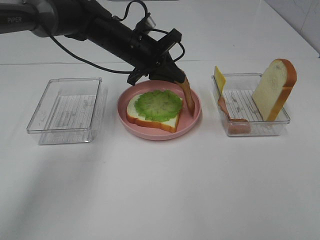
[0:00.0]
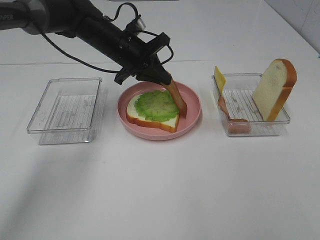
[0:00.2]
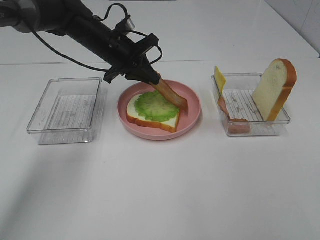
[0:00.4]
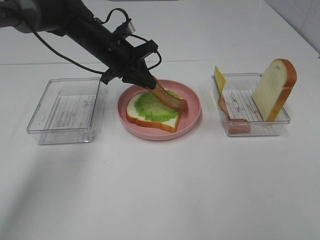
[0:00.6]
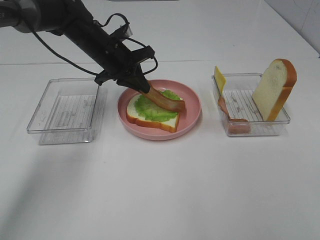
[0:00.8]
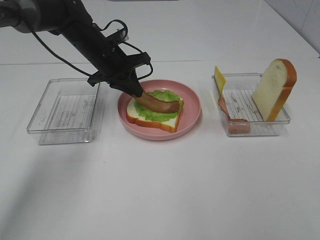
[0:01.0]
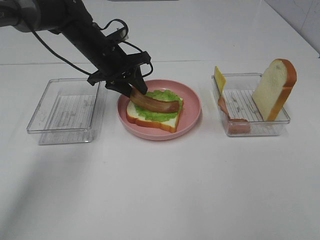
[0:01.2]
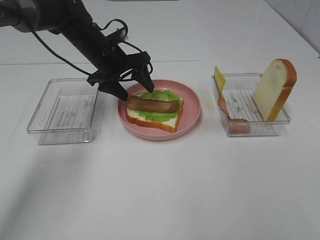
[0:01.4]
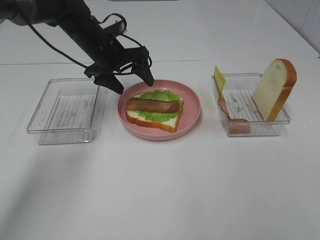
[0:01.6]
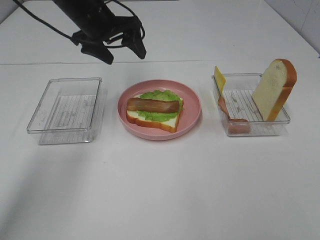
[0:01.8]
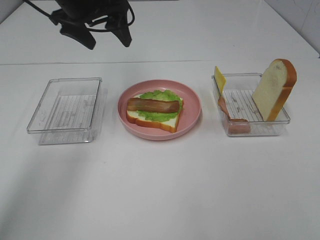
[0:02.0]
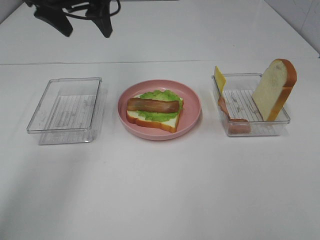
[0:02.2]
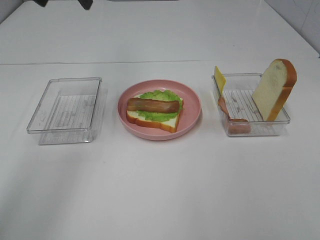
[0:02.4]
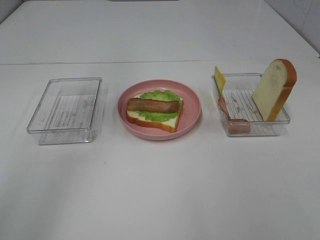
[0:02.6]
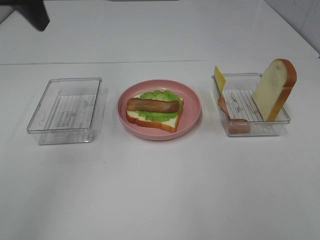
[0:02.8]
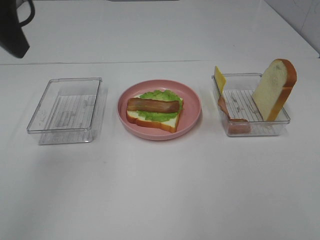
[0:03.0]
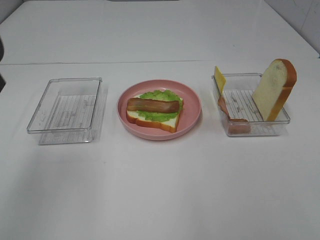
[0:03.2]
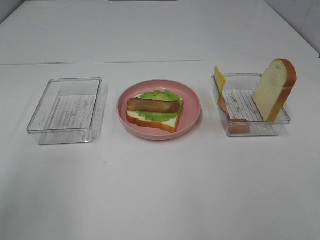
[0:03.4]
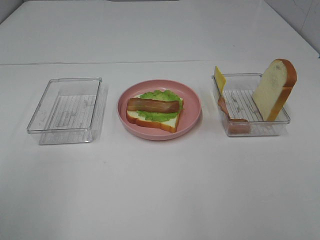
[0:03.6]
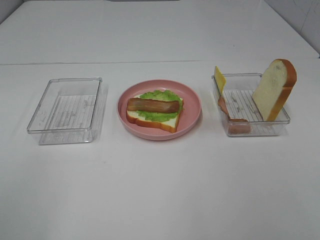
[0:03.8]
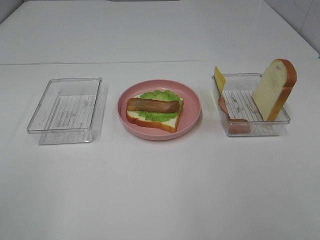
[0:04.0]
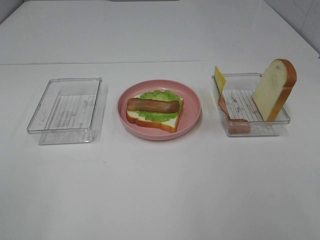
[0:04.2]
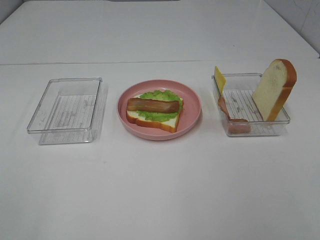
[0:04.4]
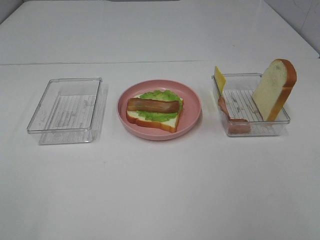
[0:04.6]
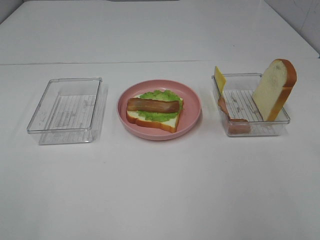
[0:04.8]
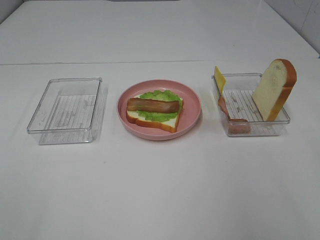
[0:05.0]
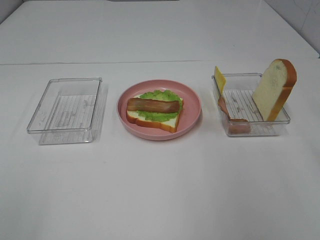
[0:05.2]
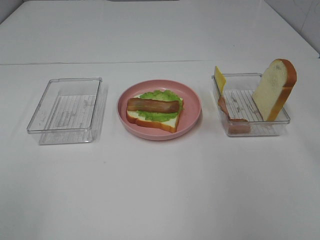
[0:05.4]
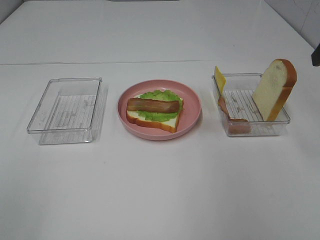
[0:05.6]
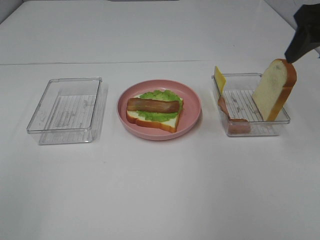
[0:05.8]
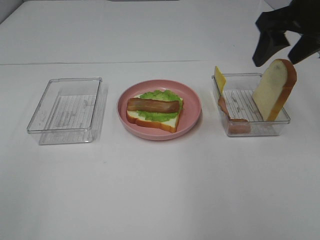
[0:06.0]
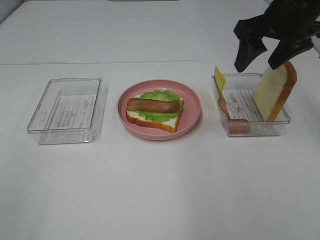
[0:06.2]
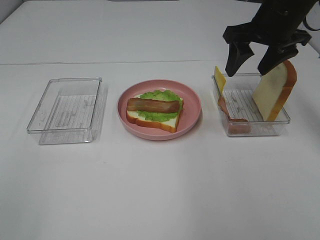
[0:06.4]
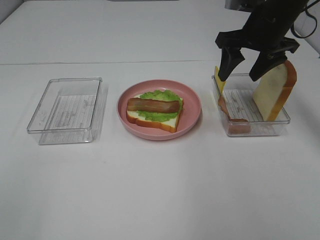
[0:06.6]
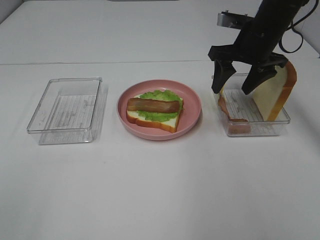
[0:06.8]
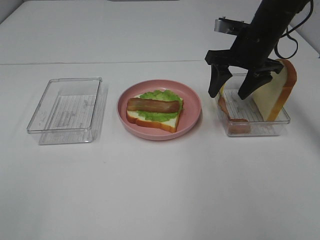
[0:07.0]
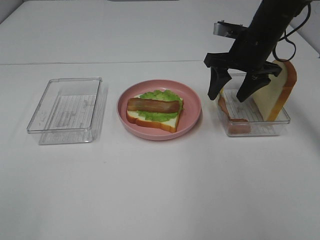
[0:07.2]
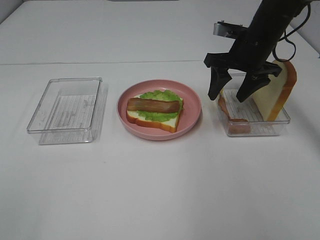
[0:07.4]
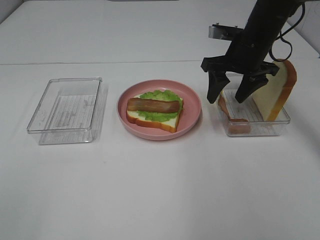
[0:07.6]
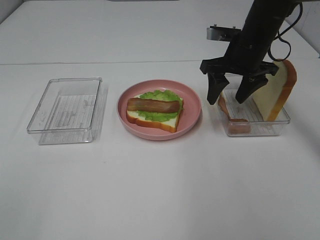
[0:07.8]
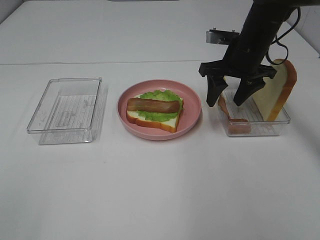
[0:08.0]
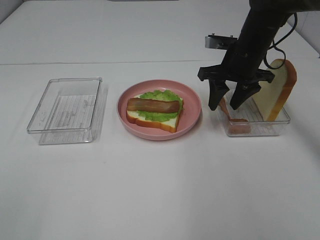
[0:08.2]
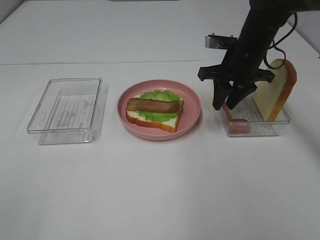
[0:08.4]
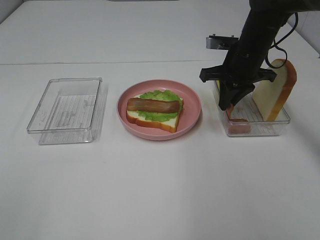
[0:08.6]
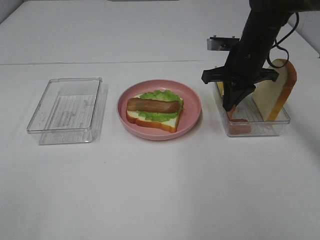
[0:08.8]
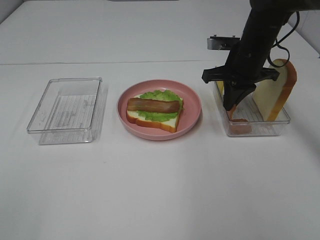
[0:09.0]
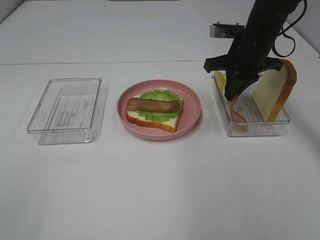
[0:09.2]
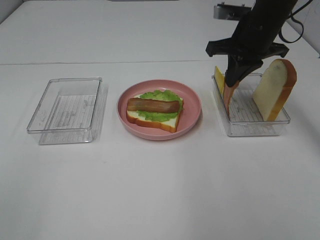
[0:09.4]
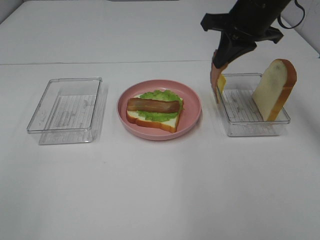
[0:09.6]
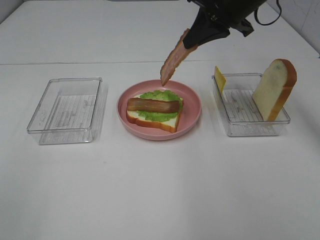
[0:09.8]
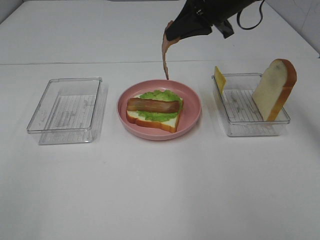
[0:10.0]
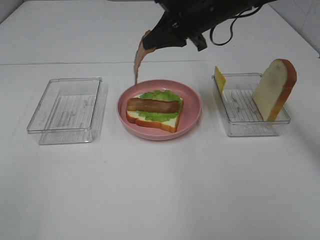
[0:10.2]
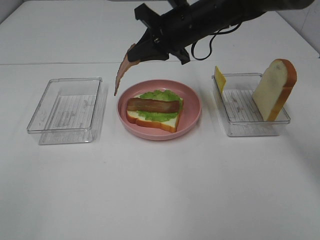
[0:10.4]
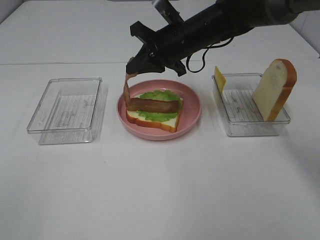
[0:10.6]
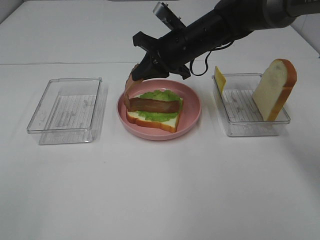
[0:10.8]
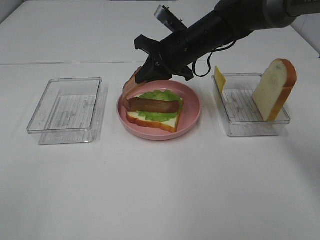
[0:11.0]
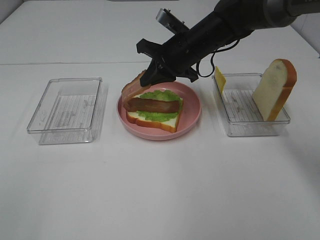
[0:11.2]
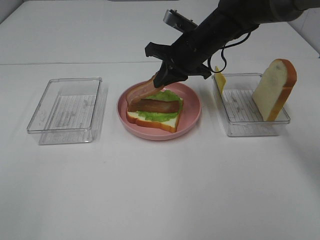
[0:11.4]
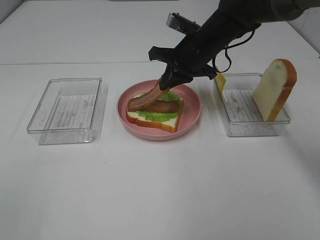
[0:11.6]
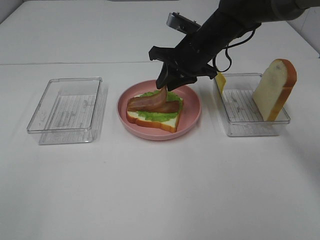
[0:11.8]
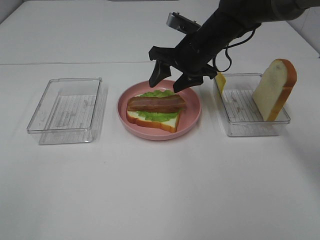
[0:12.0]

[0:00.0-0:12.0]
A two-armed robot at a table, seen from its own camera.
Task of the whole recording: Make sandwiches.
Step, 0:01.6 to 0:08.8: Right hand:grab the bacon.
0:00.0 to 0:01.6: The left gripper goes some 5 cm to the left, and opens its fingers.
0:01.6 to 0:03.0: The left gripper travels backward, upward and to the left by roughly 30 cm.
0:03.0 to 0:04.4: The left gripper travels backward by roughly 25 cm.
0:04.4 to 0:06.0: The right gripper goes roughly 35 cm forward.
0:06.0 to 0:07.6: The right gripper shifts about 15 cm downward, forward and to the left.
0:07.6 to 0:09.0: The right gripper closes up.
0:09.0 to 0:10.4: The right gripper heads to the left, covering approximately 10 cm.
0:10.4 to 0:12.0: The right gripper opens.

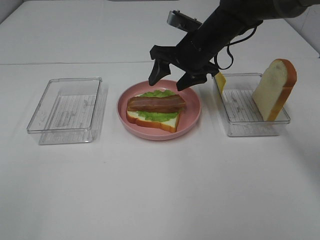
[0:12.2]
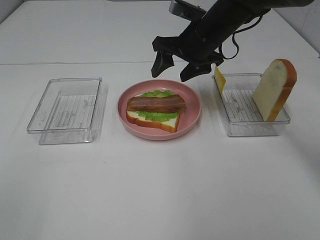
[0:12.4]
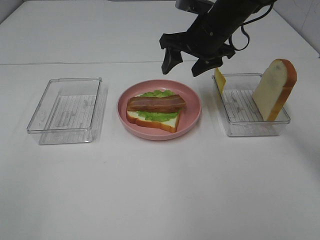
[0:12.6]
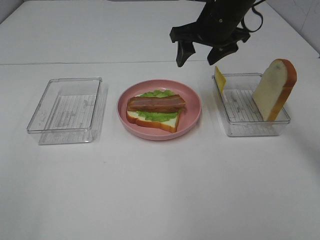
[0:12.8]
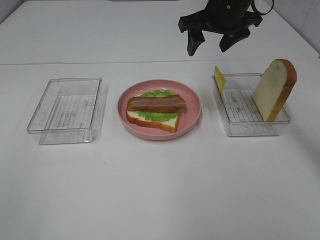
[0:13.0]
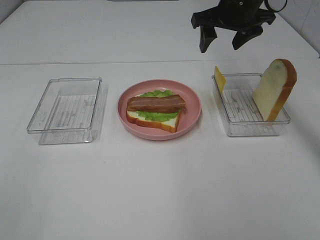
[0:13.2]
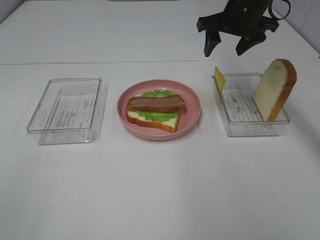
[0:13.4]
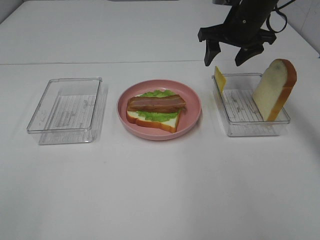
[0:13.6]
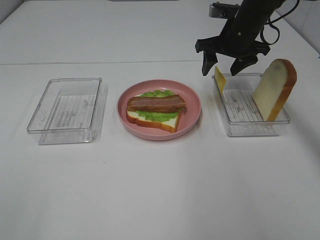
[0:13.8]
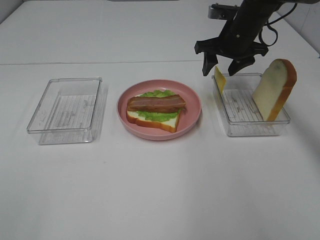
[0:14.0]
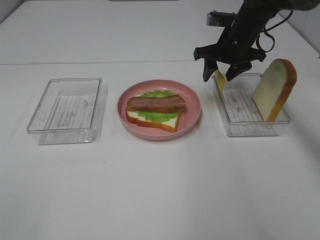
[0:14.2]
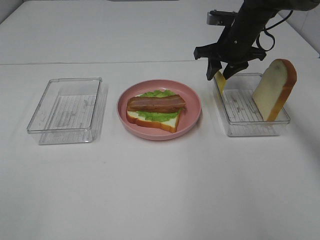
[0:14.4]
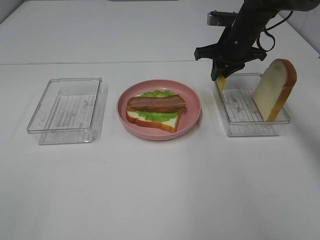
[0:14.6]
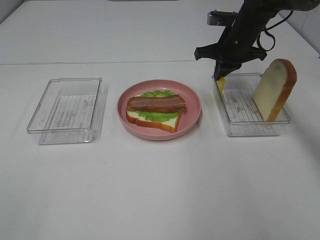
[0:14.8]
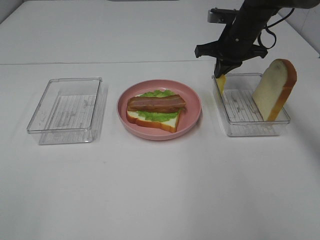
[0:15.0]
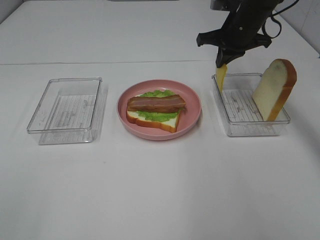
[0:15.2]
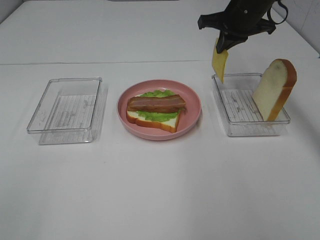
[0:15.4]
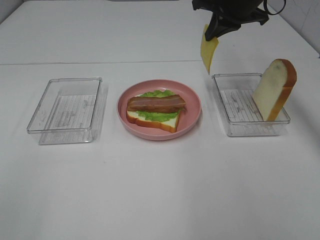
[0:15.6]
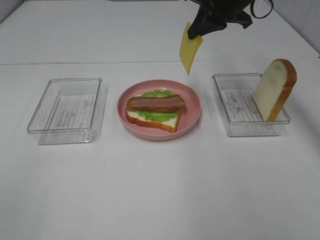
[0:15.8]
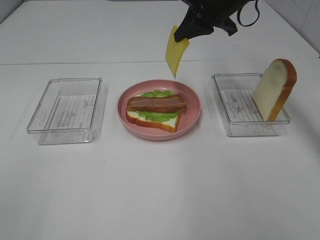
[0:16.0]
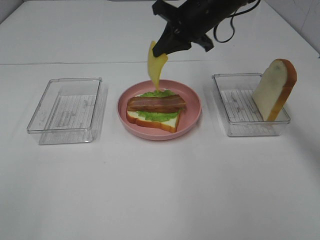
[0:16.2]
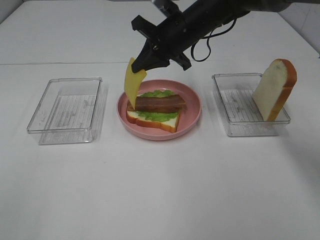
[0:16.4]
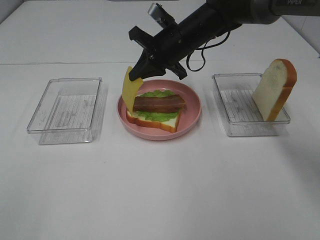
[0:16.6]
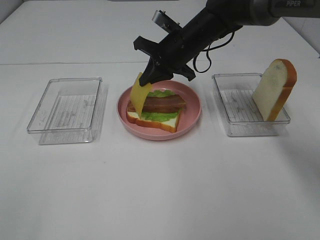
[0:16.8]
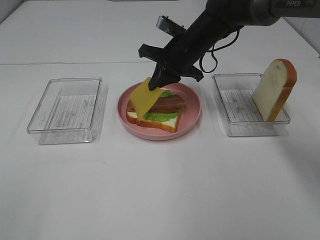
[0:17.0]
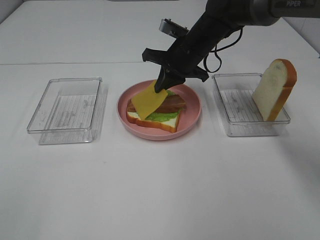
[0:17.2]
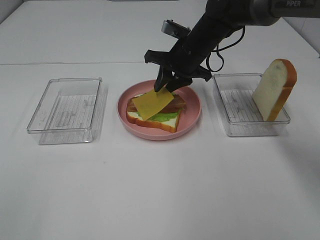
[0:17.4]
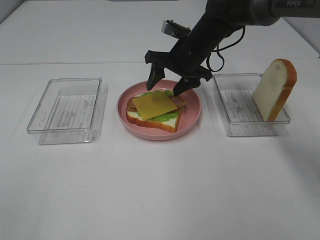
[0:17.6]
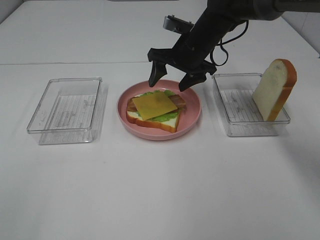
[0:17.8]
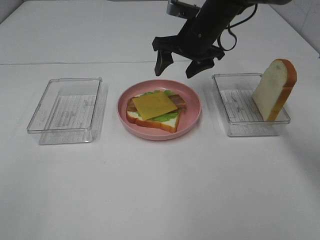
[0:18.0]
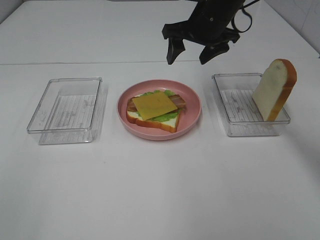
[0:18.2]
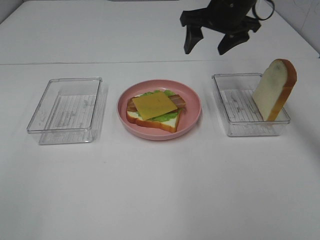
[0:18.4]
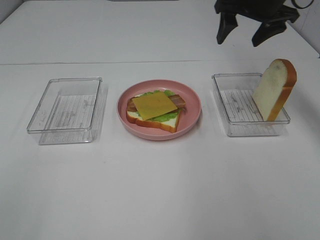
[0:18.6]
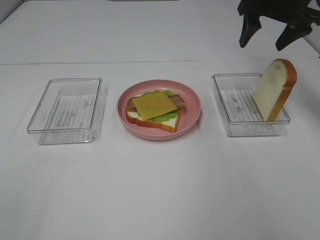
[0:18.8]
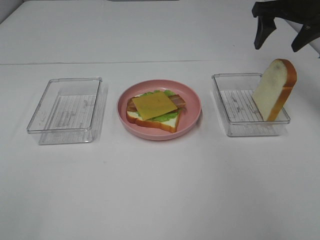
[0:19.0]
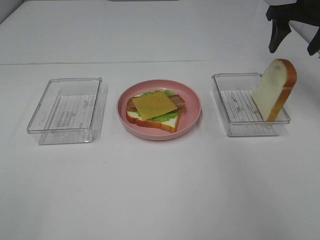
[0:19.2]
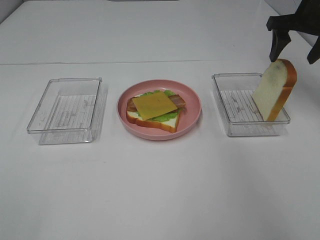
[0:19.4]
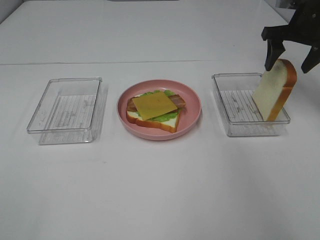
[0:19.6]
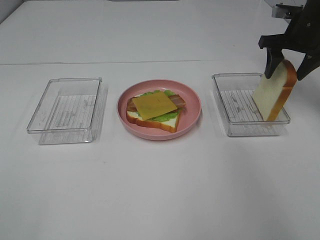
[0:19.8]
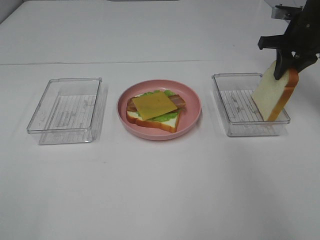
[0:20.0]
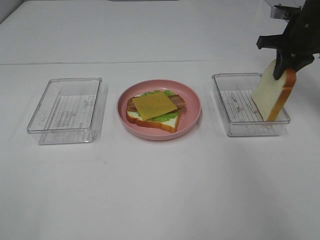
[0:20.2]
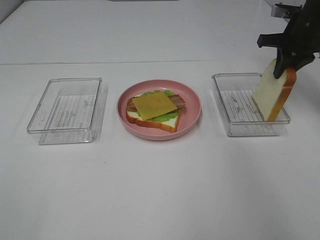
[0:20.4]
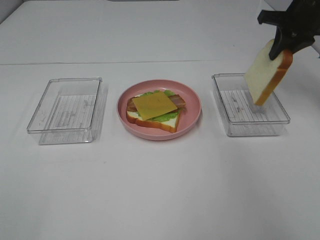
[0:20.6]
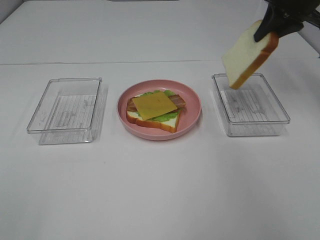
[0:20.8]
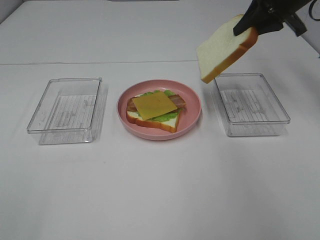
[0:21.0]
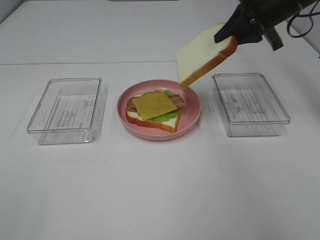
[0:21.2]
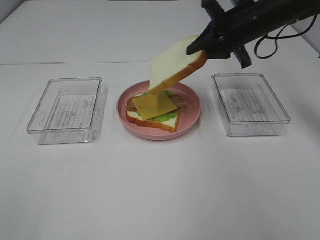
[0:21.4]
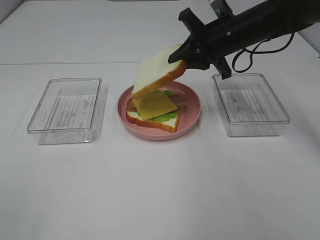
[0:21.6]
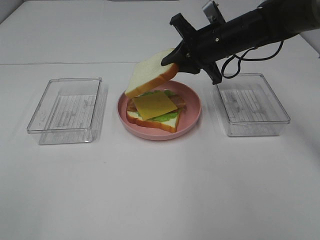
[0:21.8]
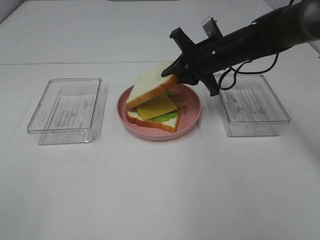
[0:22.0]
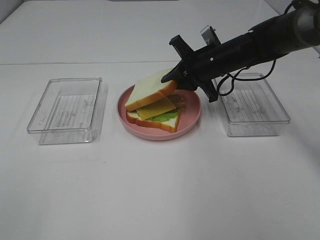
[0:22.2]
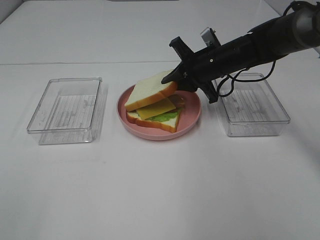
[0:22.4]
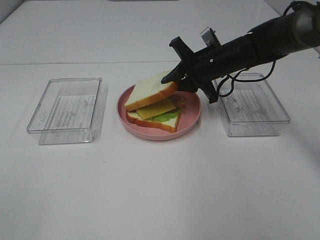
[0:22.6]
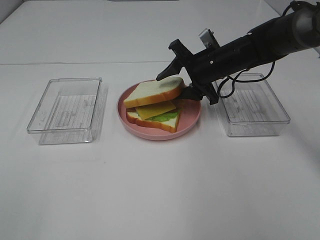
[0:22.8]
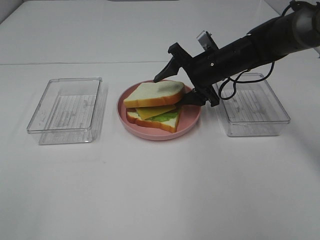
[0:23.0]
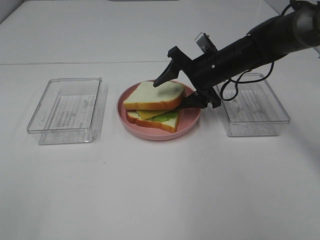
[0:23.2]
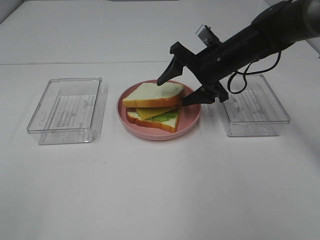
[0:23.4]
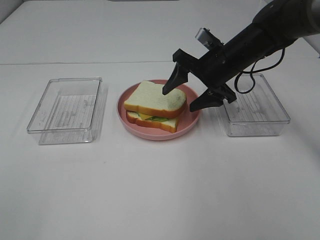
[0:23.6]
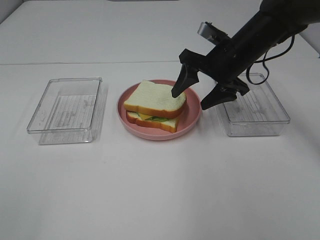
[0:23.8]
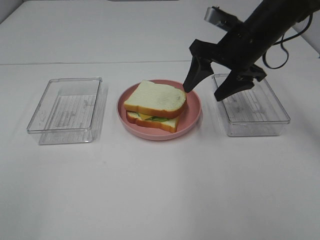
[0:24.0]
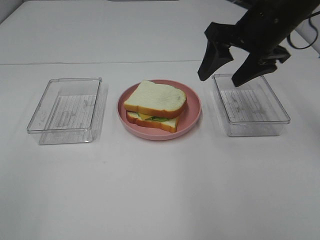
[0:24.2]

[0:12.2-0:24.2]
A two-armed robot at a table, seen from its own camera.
Task of the whole recording: Make sandwiches.
Step, 0:12.6 to 0:15.0: Right hand:grab the cheese slice.
Step, 0:15.2 to 0:18.2: Right hand:place the cheese slice on top of the bacon.
Step, 0:18.4 to 0:20.2: Right hand:grab the bread slice.
Step, 0:20.4 to 0:23.8: Right hand:place the bread slice on the cheese slice.
0:12.2 to 0:13.8: The right gripper heads to the right, covering about 10 cm.
0:13.8 to 0:15.2: The right gripper closes.
0:15.2 to 0:16.6: The right gripper travels to the left by roughly 10 cm.
0:16.6 to 0:18.2: The right gripper is displaced upward and to the right by some 10 cm, and opens up.
0:18.2 to 0:19.8: The right gripper travels to the right by roughly 20 cm.
0:19.8 to 0:21.2: The right gripper heads to the left, covering roughly 10 cm, and closes up.
0:21.2 to 0:22.6: The right gripper travels downward and to the left by roughly 15 cm.
0:22.6 to 0:24.2: The right gripper moves upward and backward, approximately 15 cm, and opens.
